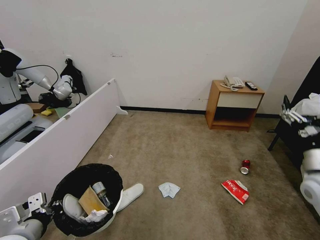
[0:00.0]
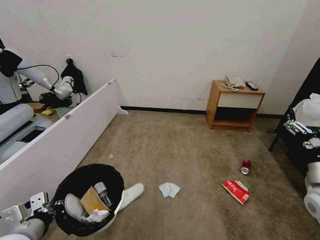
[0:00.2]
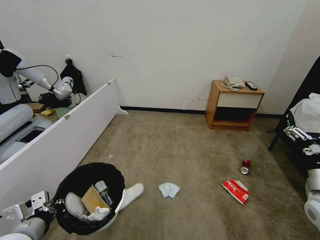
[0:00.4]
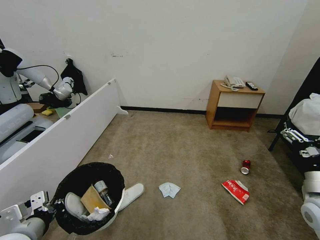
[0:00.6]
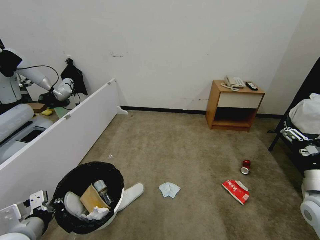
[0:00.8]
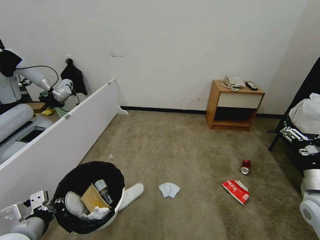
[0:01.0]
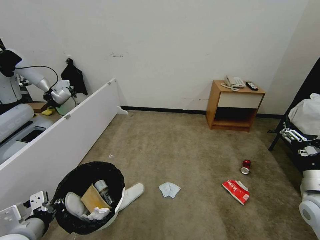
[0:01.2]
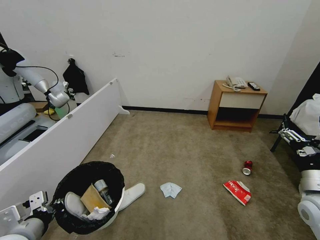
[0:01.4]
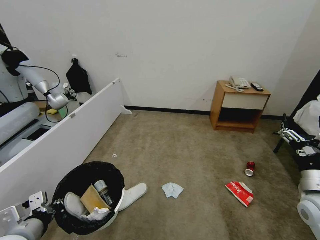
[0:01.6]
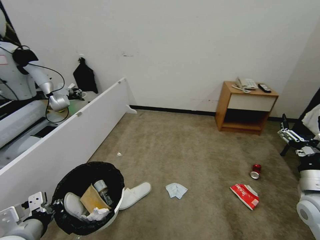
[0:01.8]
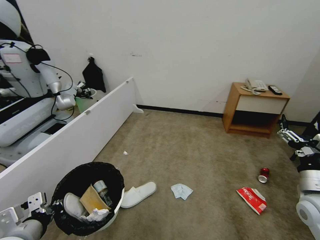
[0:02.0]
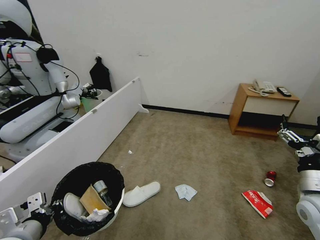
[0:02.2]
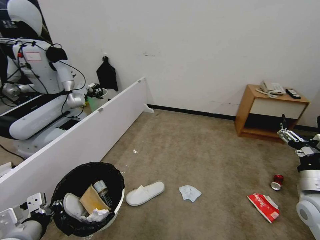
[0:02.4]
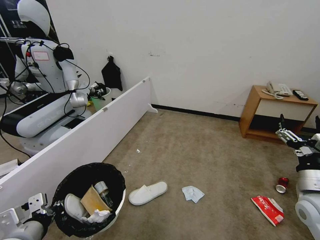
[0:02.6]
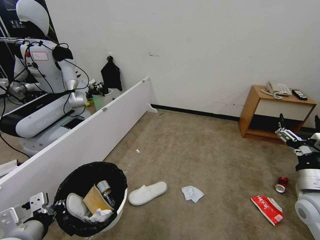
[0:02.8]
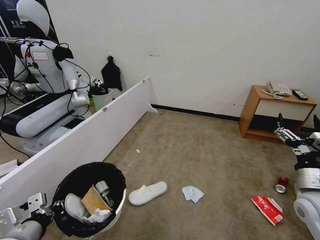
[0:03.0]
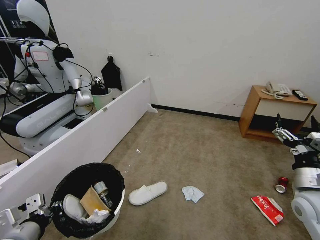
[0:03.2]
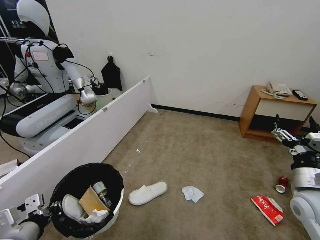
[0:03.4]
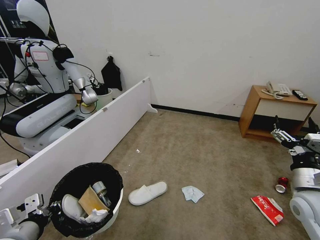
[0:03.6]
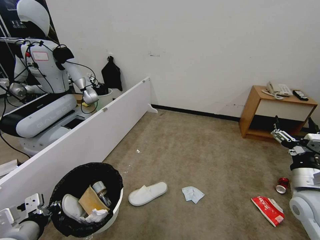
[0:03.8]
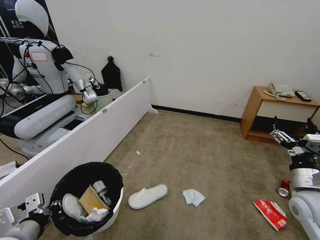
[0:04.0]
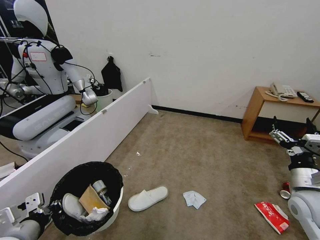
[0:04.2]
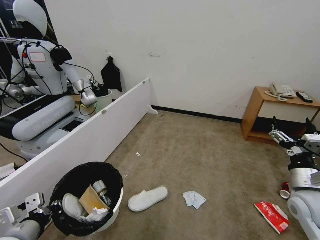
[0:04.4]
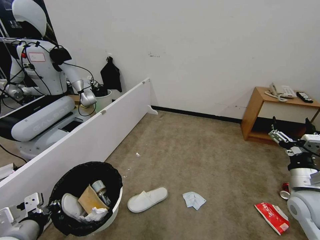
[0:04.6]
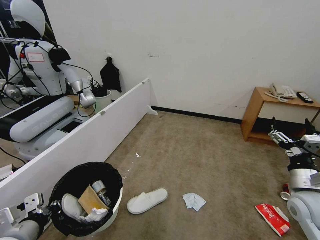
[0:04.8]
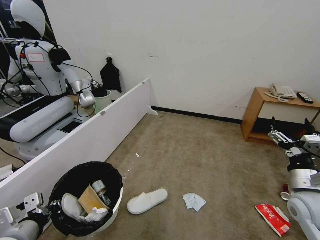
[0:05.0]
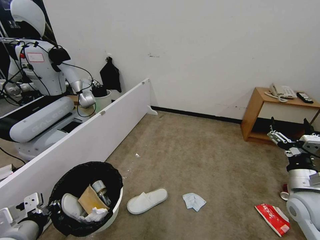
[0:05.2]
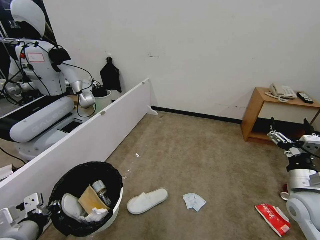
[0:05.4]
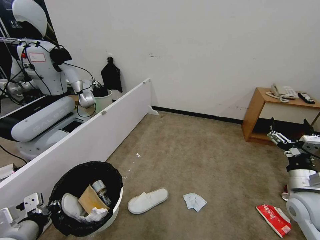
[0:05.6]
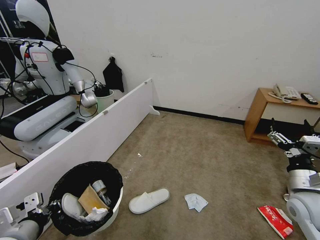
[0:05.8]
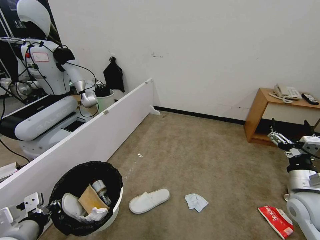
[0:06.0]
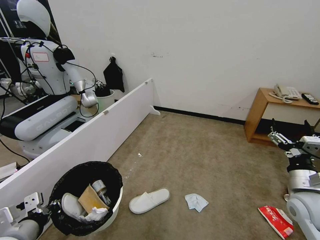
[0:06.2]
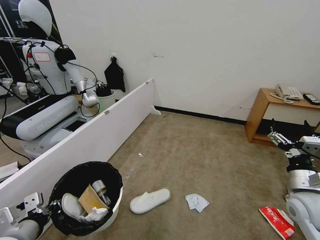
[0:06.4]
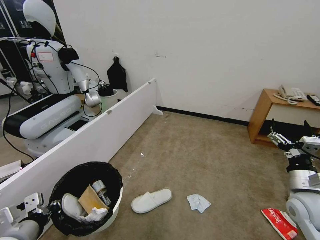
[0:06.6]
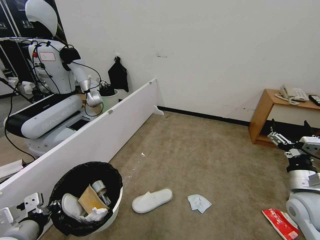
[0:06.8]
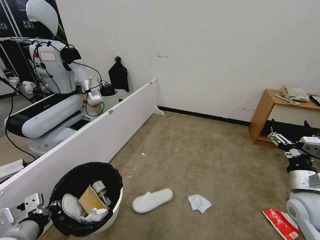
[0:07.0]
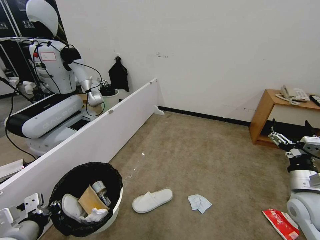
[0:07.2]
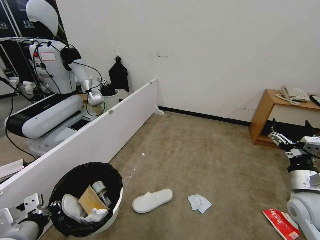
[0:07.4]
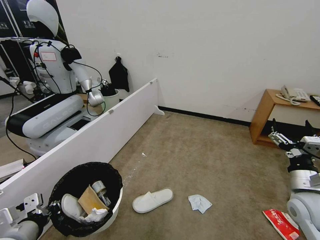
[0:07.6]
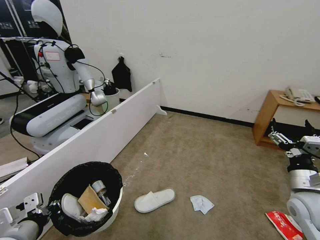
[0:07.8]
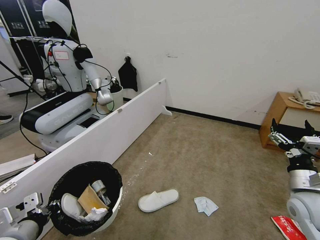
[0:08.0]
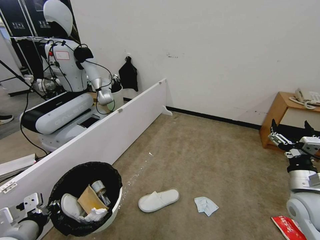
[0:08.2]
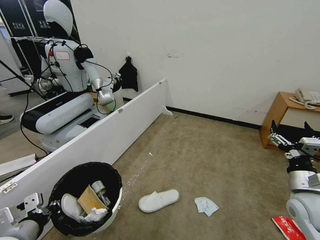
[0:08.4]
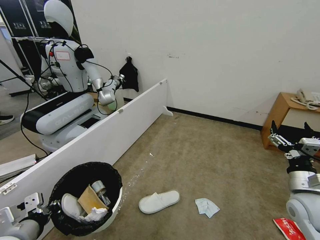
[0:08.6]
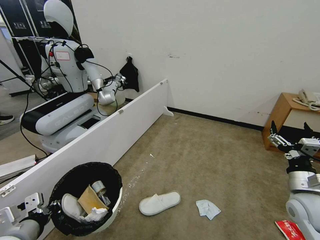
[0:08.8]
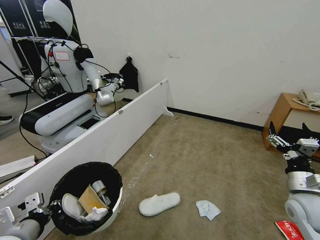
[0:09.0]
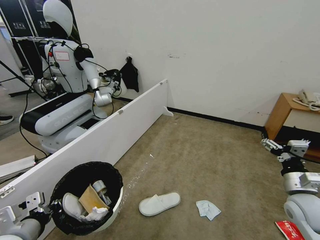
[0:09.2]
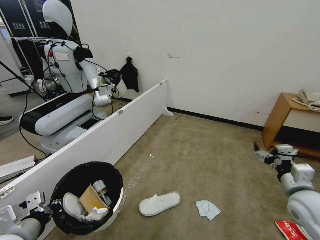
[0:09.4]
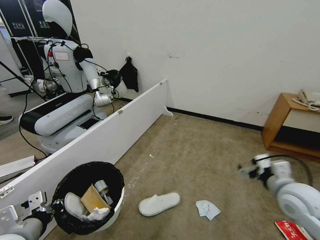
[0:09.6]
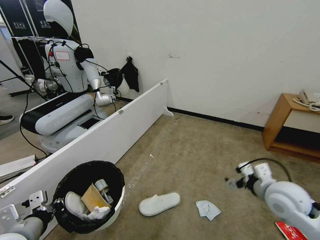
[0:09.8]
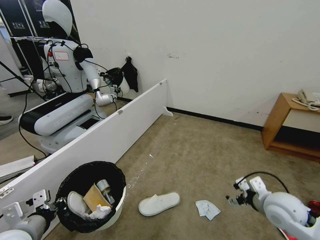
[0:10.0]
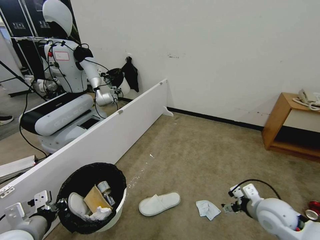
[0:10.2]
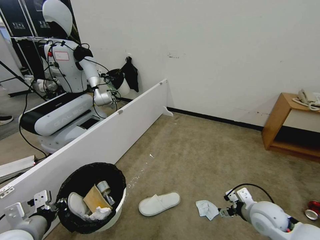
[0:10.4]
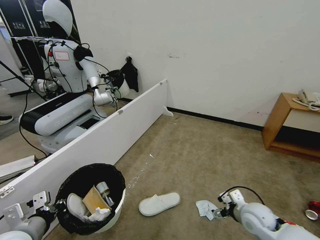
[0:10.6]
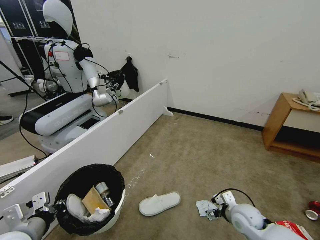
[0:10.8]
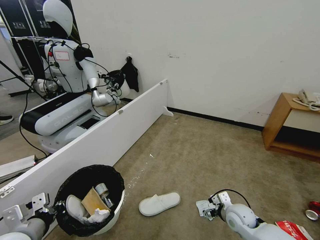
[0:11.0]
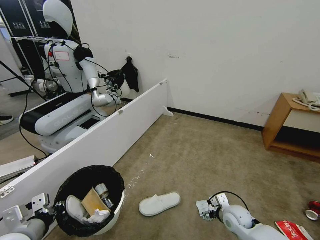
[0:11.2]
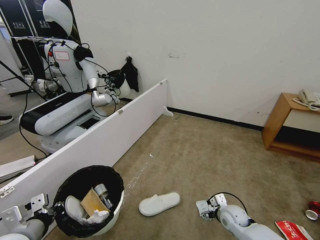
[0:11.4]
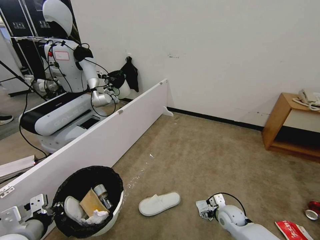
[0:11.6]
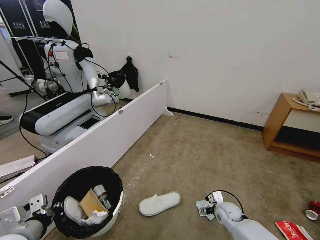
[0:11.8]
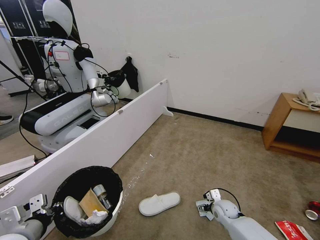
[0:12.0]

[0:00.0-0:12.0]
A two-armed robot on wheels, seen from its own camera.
Task of the whole recording: Pick up the trash bin, then pick up the garbage from the floor and place it into the trash bin.
0:00.0 to 0:01.6: The right gripper ends up roughly 5 cm from where it was.
0:03.0 to 0:04.4: The grippers make only small movements.
0:04.4 to 0:07.6: Both grippers stay about where they are.
0:09.0 to 0:10.4: The right gripper heads to the left and downward, covering roughly 10 cm.
0:10.4 to 0:12.0: The right gripper travels downward and forward by roughly 20 cm.

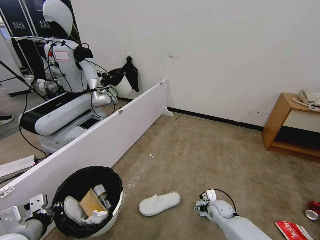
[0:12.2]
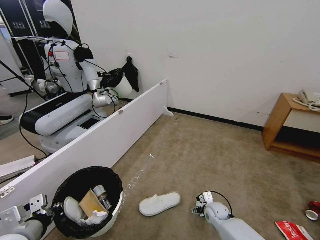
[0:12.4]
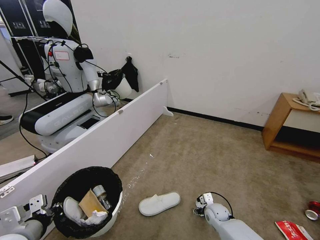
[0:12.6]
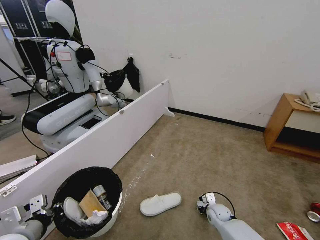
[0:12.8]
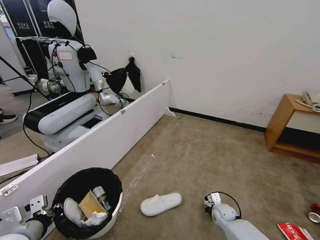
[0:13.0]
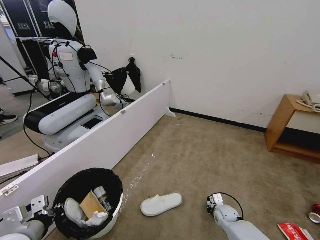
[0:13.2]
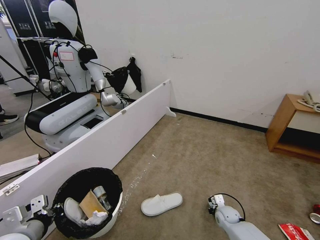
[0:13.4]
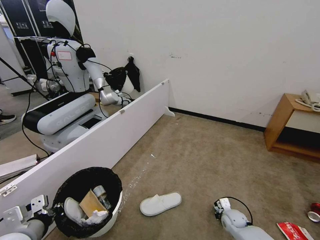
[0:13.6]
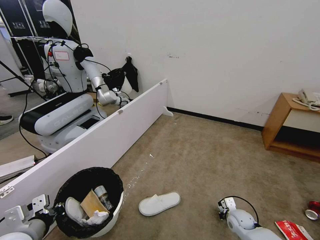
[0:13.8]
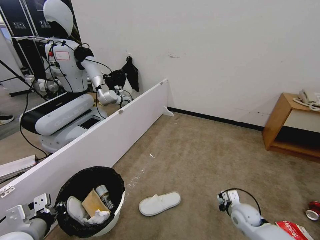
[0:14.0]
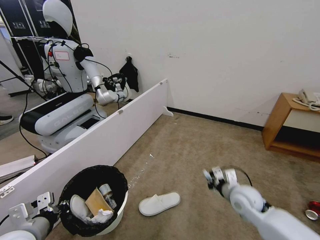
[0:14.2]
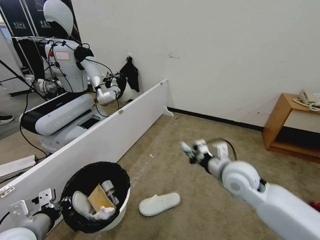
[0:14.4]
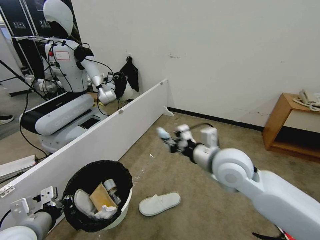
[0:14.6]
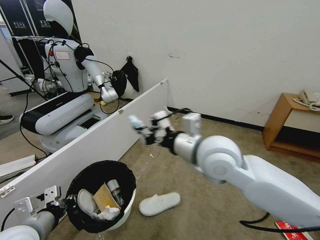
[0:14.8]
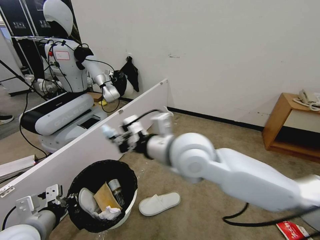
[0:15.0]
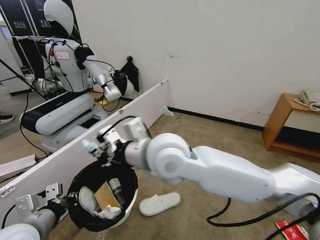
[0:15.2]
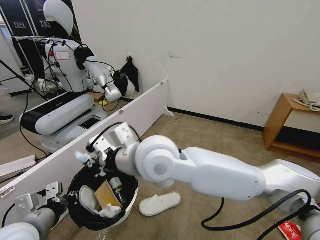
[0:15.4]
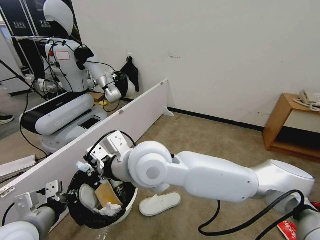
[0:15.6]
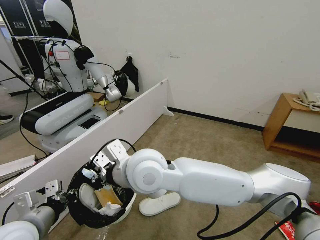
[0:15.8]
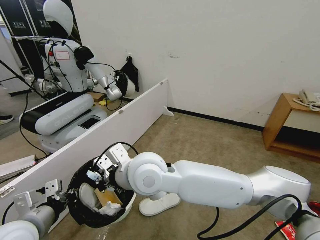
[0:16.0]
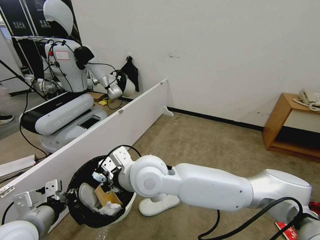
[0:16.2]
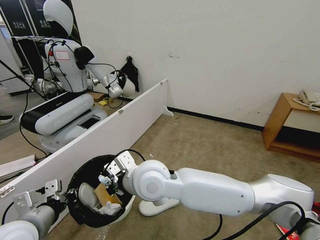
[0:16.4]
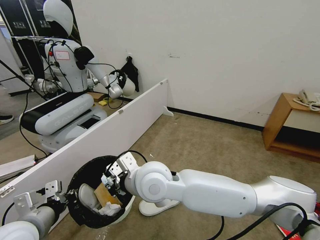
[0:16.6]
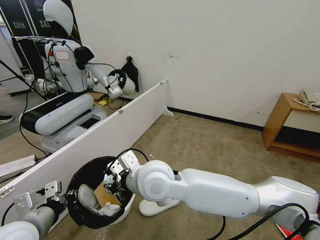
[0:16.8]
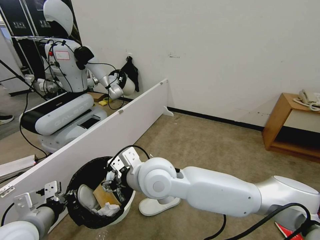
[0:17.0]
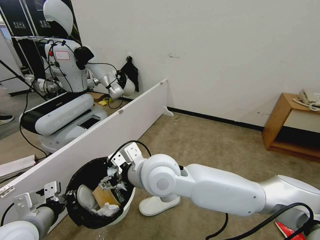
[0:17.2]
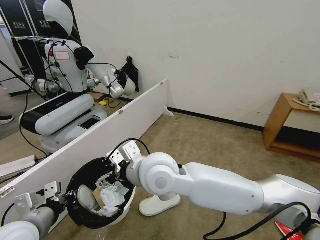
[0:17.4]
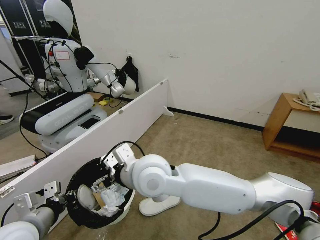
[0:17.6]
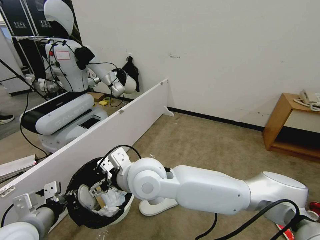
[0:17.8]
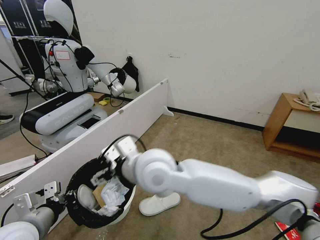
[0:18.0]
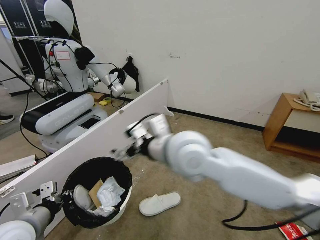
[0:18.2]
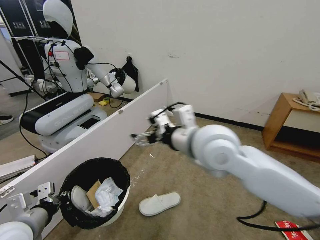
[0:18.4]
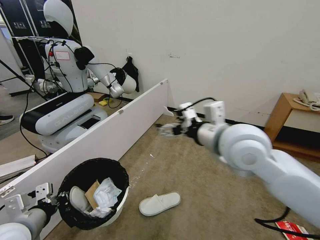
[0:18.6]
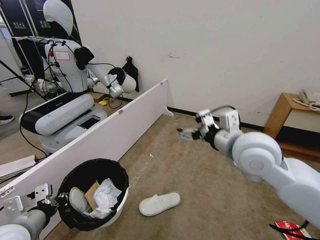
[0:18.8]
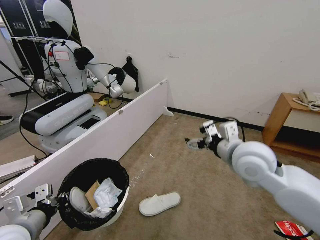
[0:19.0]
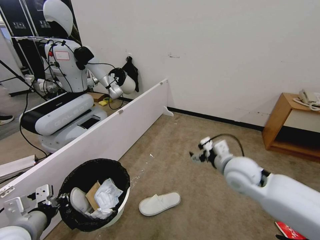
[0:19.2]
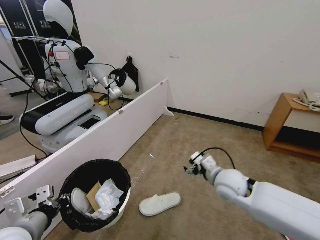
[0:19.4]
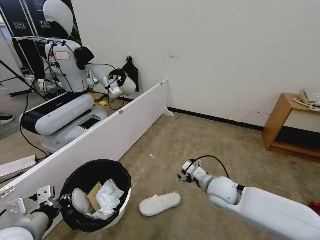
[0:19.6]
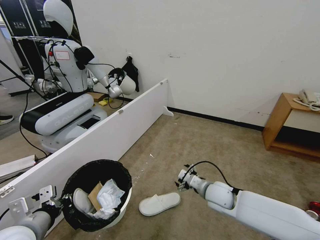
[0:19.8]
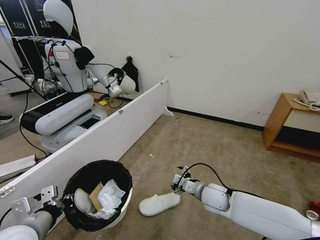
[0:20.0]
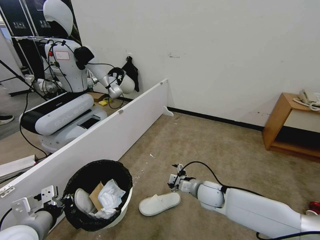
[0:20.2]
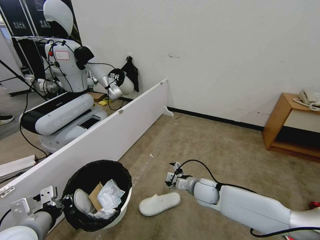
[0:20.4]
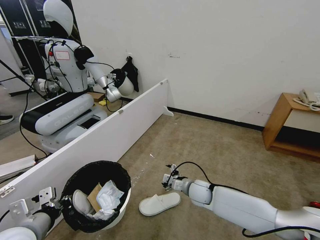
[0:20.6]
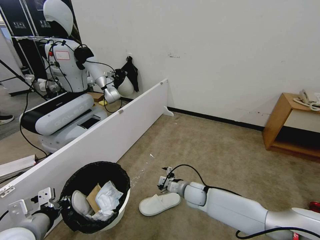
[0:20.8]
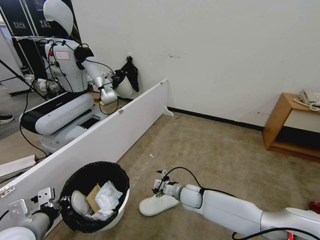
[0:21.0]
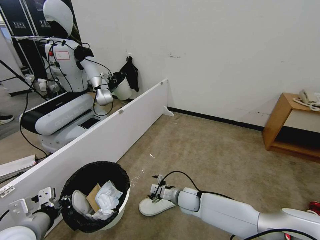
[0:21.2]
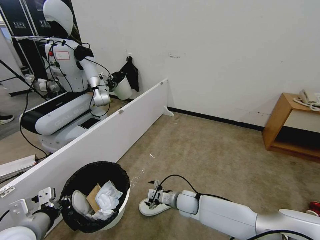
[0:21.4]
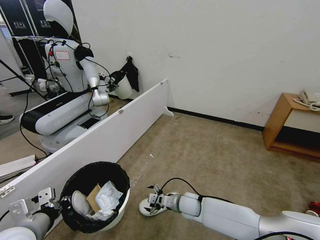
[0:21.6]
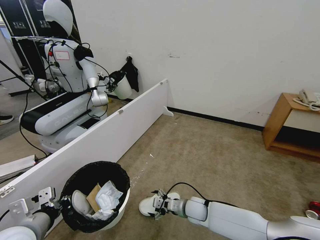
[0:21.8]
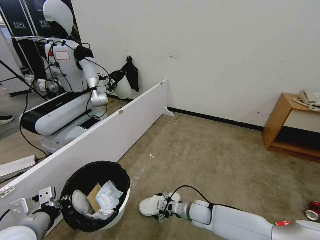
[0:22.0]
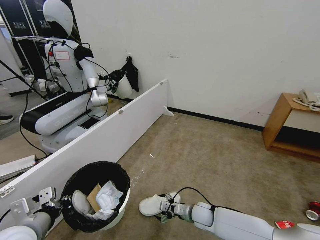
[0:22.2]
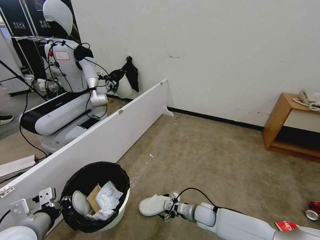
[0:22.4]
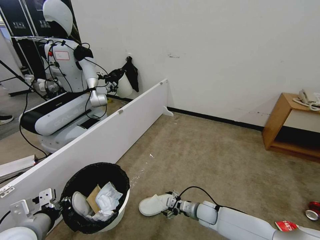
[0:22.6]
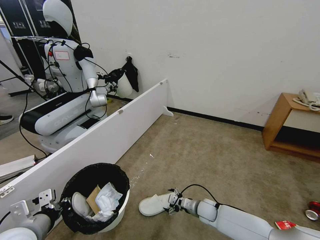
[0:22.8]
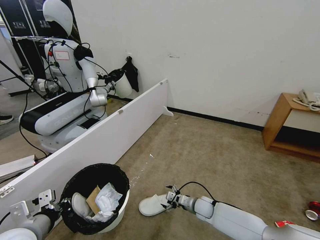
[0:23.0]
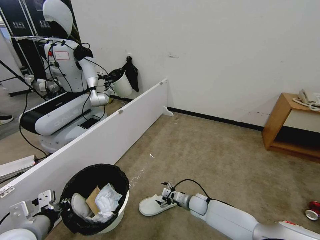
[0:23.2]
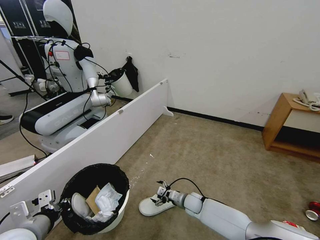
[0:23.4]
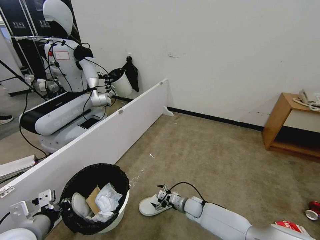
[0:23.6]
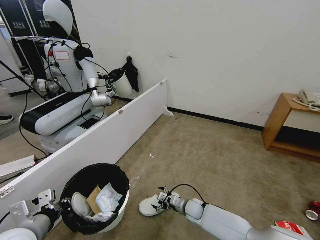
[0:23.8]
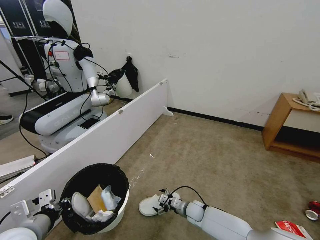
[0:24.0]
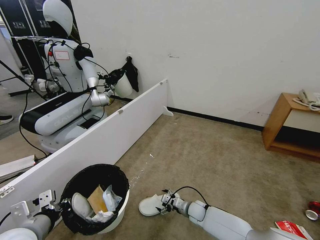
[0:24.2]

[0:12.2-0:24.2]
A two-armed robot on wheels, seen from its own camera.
Task of the whole recording: Pick up the trash bin, then pick up the garbage from the floor and place it into the trash bin.
0:12.2 to 0:13.8: The right gripper moves to the right, some 5 cm, and closes its fingers.
0:13.8 to 0:15.2: The right gripper is displaced upward and to the left by some 50 cm.
0:15.2 to 0:16.6: The right gripper travels downward by about 10 cm.
0:16.6 to 0:18.2: The right gripper goes some 10 cm upward and to the right, and opens its fingers.
0:18.2 to 0:19.8: The right gripper travels downward and to the right by roughly 35 cm.
0:19.8 to 0:21.2: The right gripper shifts some 15 cm downward and to the left.
0:21.2 to 0:22.6: The right gripper is displaced to the right and downward by approximately 10 cm.
0:22.6 to 0:24.2: The right gripper ends up about 5 cm from where it was.
